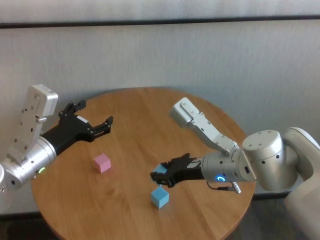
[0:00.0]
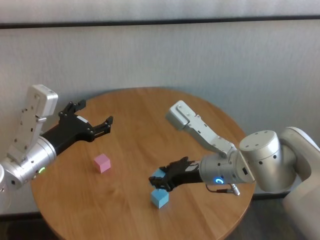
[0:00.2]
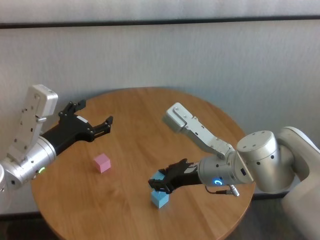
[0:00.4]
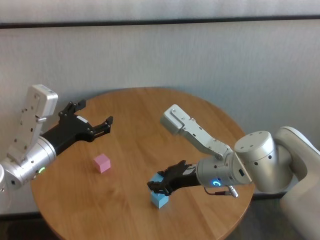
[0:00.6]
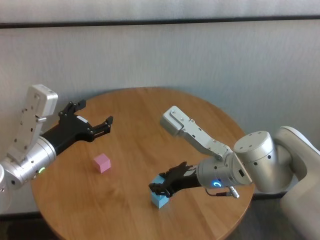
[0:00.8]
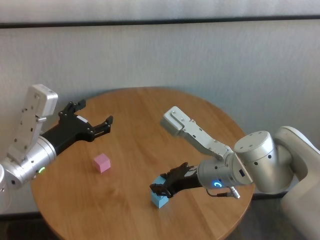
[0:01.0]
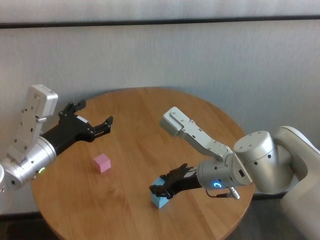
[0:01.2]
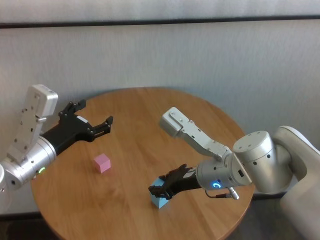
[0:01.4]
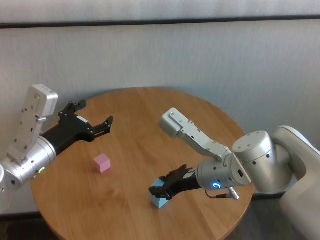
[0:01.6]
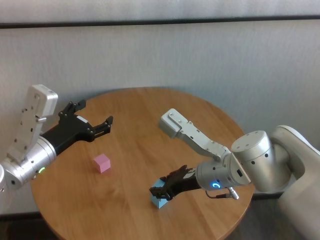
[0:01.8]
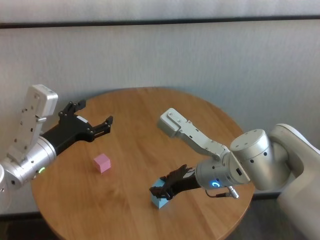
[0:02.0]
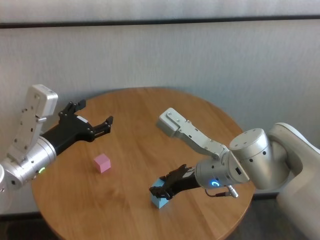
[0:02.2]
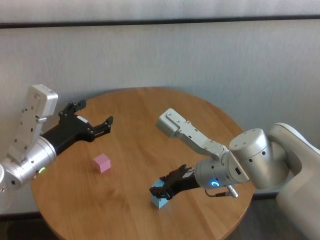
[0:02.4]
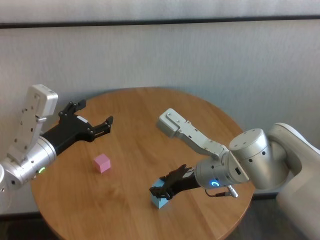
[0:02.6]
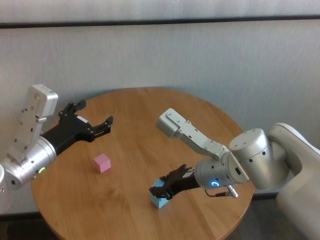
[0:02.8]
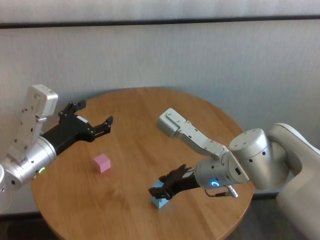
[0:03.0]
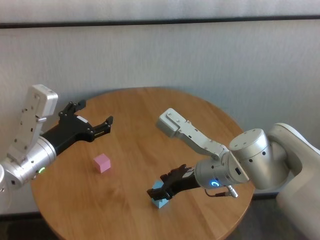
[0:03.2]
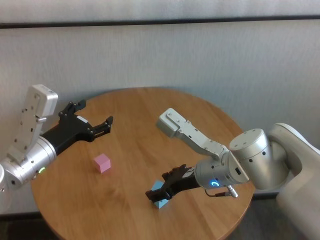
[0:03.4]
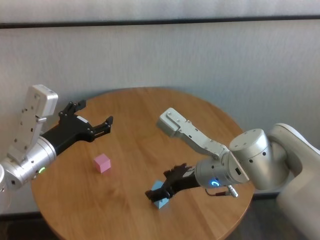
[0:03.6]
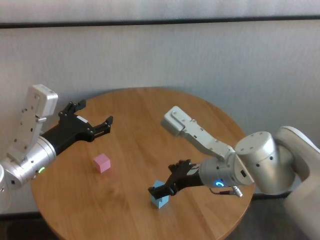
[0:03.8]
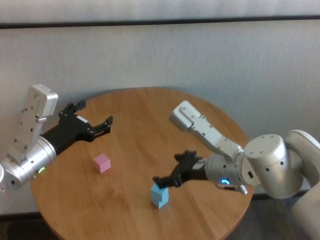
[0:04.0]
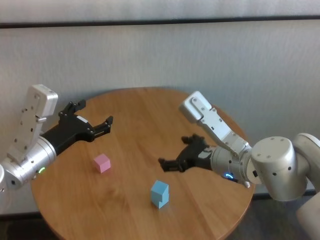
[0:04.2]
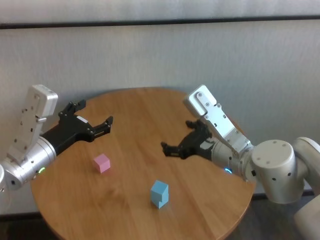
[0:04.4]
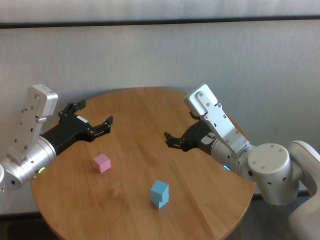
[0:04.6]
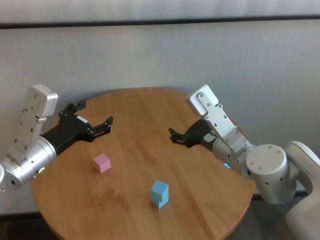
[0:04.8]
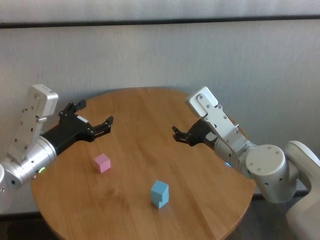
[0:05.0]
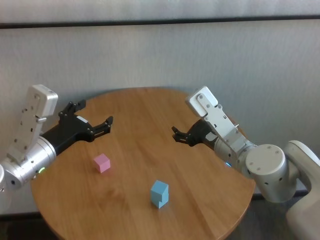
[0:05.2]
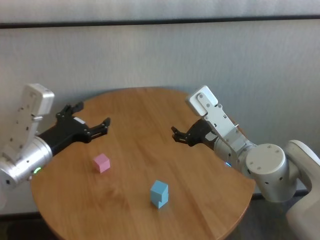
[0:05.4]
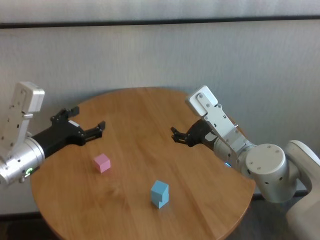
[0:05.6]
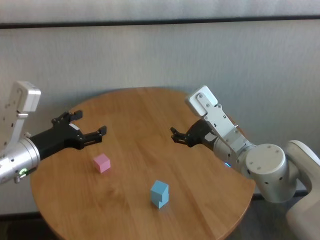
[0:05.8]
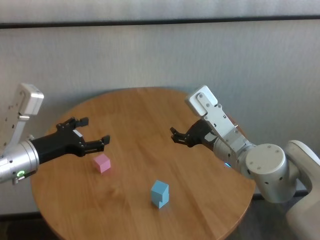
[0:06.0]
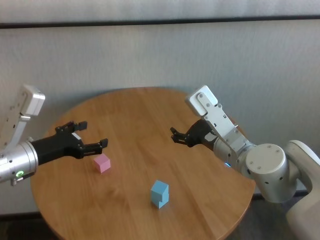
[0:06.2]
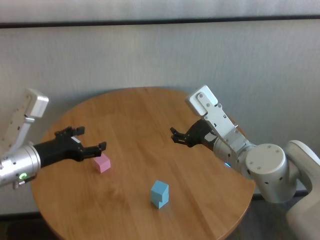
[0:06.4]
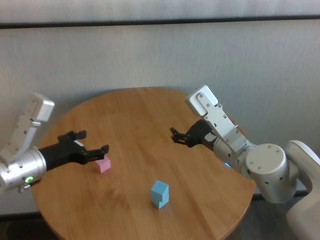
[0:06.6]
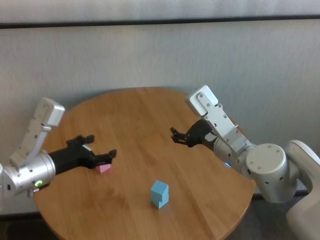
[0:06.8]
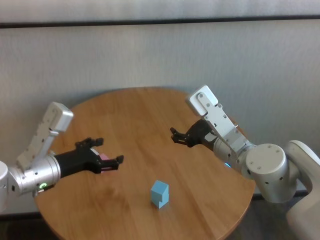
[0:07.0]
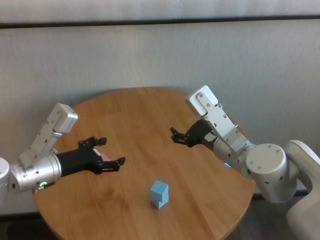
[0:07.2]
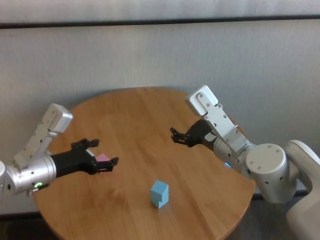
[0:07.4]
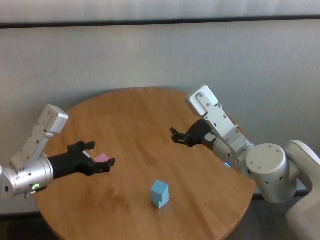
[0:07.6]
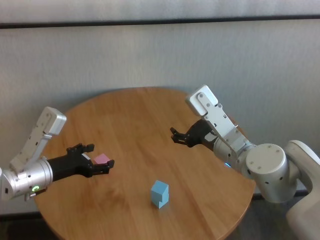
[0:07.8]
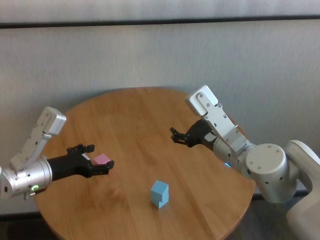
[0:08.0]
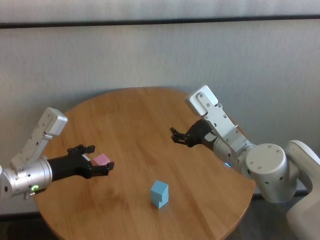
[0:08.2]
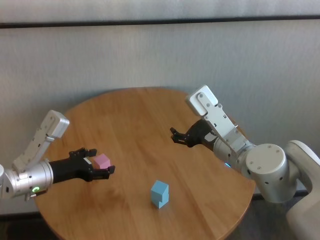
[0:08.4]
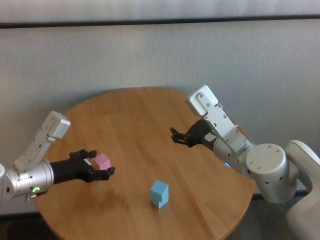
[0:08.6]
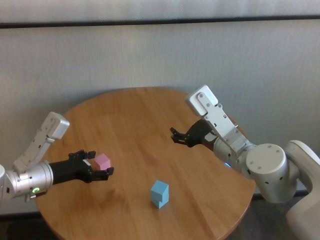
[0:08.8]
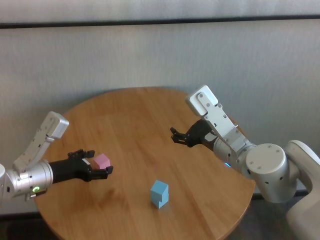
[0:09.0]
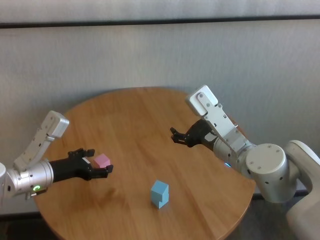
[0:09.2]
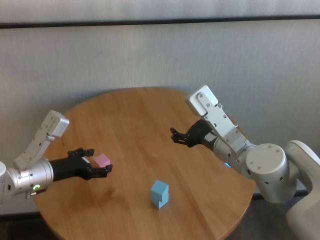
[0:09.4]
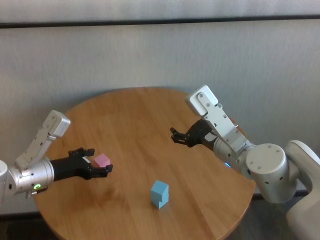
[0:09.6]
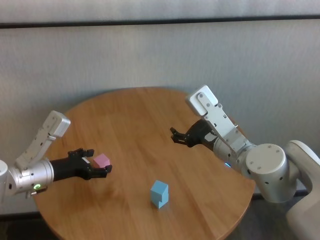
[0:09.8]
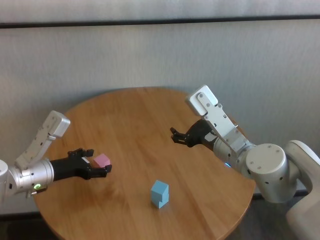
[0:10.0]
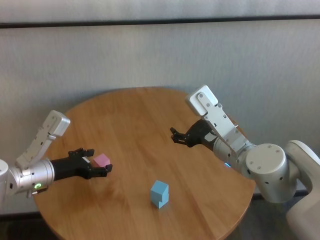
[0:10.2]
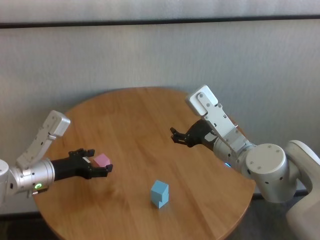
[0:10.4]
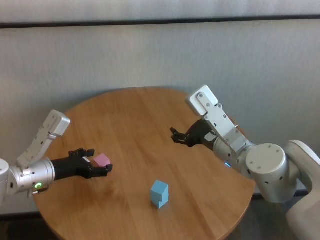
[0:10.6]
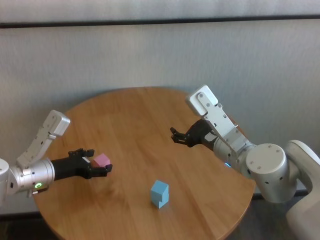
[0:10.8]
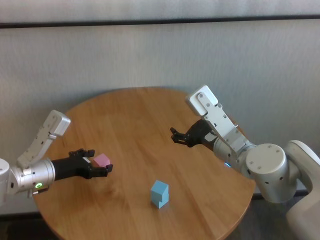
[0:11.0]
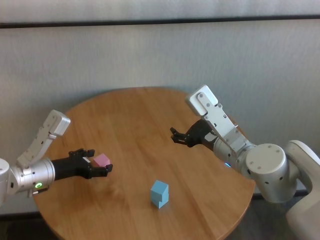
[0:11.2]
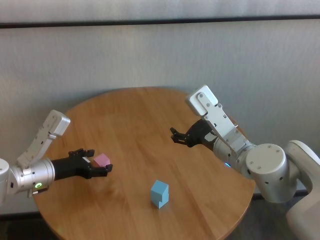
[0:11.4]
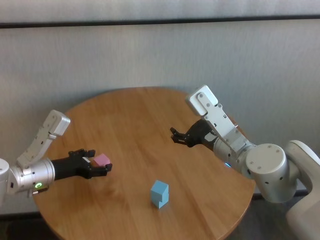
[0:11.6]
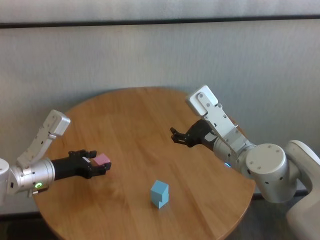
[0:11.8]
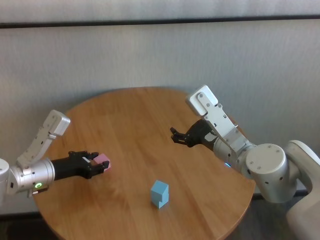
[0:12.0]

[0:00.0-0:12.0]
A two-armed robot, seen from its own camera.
Task of the whole recording: stack building blocks on the table.
Step, 0:00.0 to 0:03.2: Place the blue building block on the blue building blocks with right gripper.

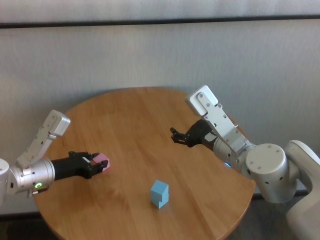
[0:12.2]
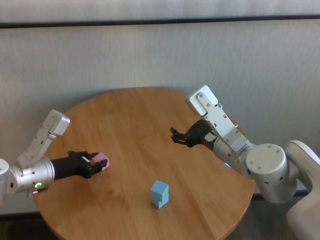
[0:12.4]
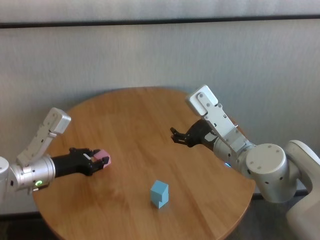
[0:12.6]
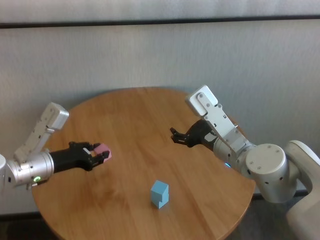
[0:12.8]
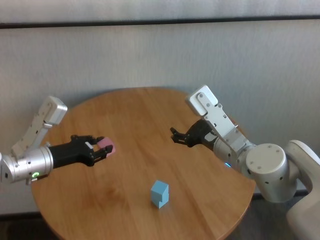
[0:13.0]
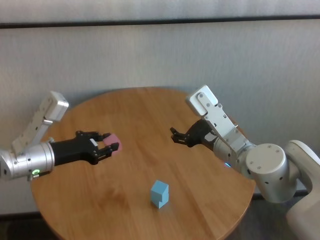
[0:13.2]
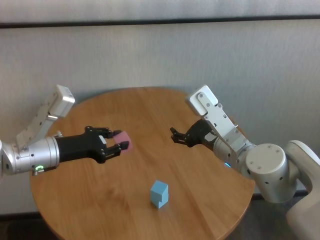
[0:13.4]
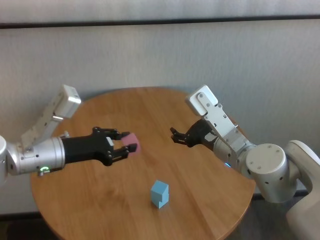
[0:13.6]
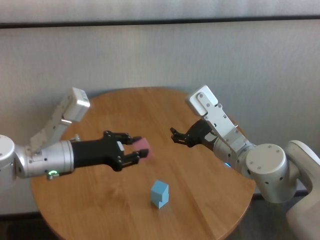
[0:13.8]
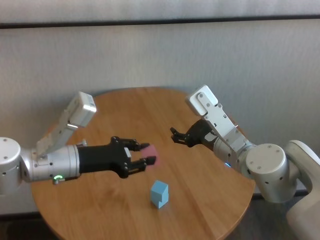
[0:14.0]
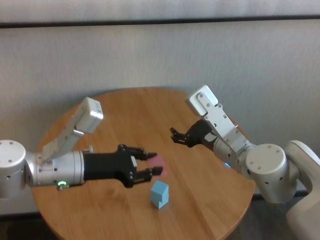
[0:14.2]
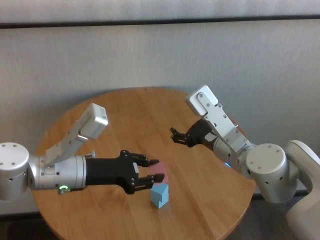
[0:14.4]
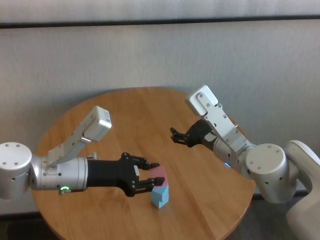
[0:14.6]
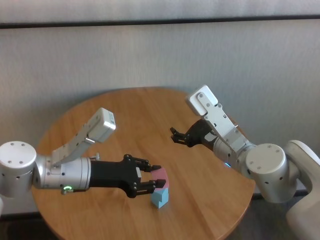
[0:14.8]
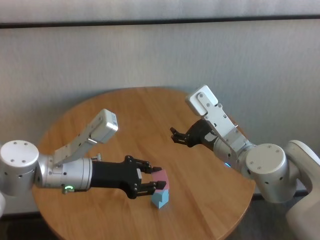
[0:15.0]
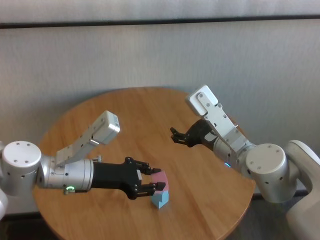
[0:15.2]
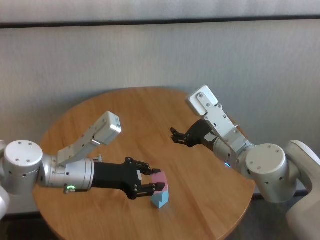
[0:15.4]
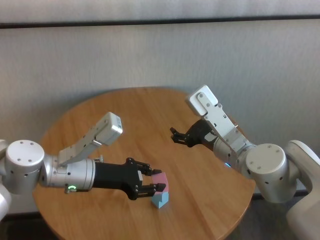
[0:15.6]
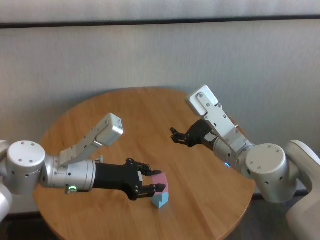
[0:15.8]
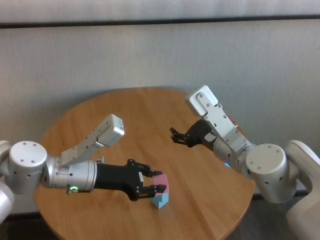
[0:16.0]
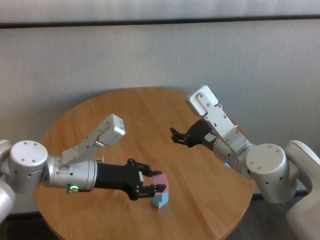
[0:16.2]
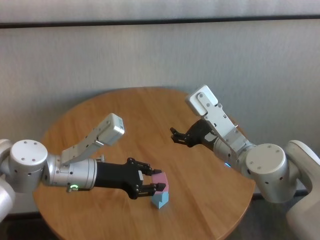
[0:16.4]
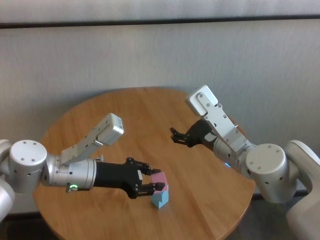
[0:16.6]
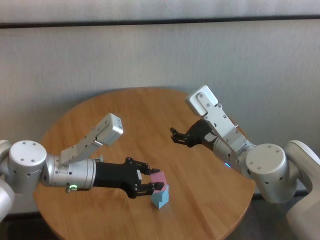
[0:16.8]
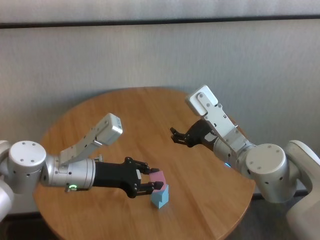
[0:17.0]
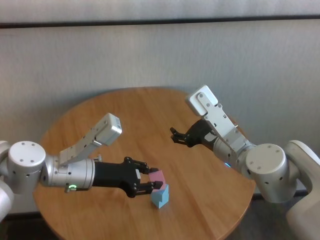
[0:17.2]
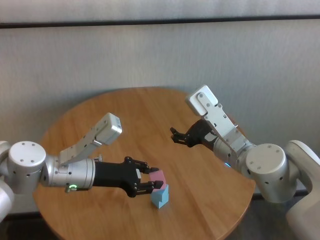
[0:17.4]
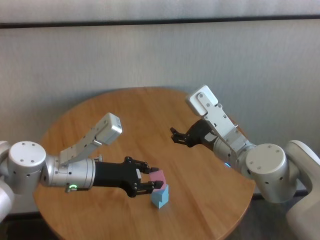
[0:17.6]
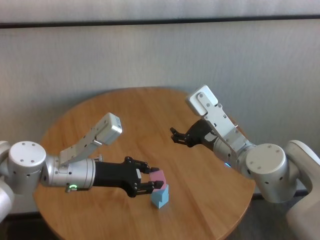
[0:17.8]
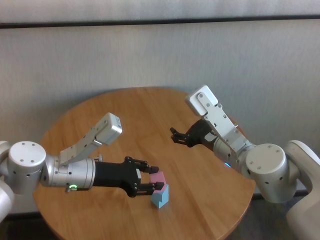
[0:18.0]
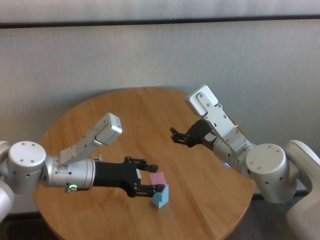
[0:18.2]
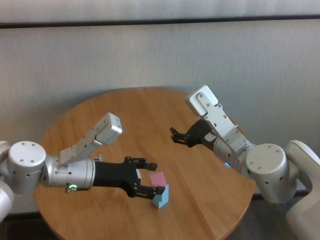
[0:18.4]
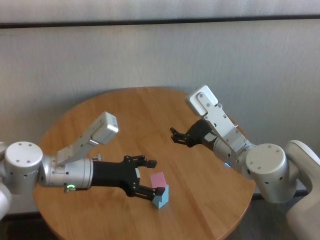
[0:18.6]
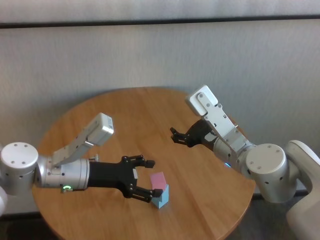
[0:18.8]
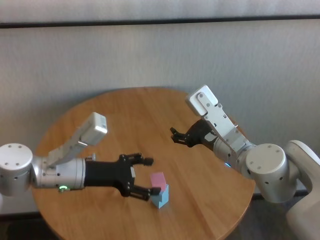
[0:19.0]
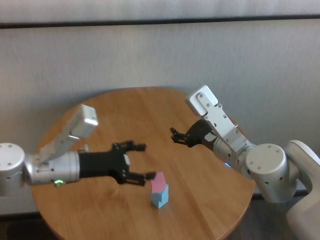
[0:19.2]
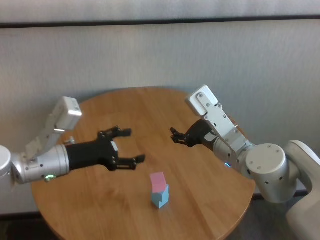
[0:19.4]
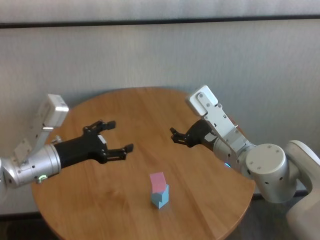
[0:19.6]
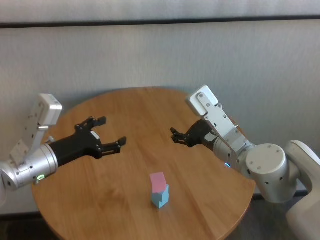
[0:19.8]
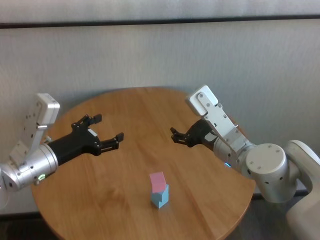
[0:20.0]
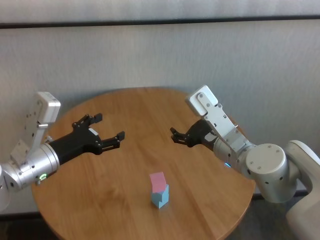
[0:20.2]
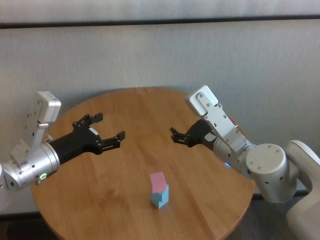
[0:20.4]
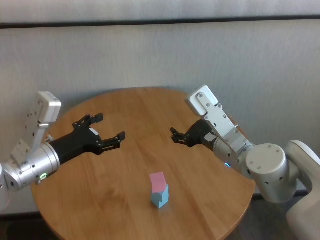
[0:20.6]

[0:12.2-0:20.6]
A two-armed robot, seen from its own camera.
Task of the whole recording: stack building blocks on the table.
Step, 0:12.4 to 0:18.2: Place the pink building block on the blue building blocks with left gripper.

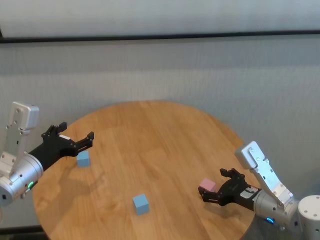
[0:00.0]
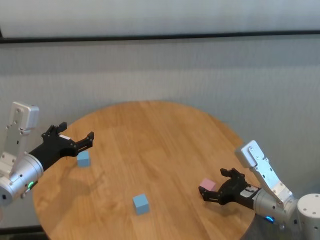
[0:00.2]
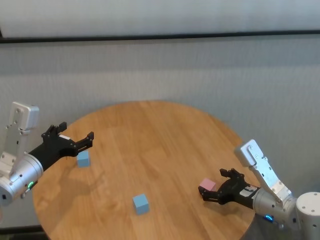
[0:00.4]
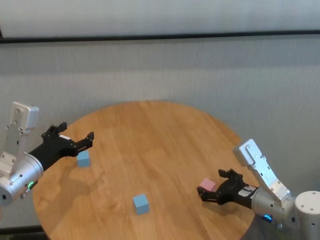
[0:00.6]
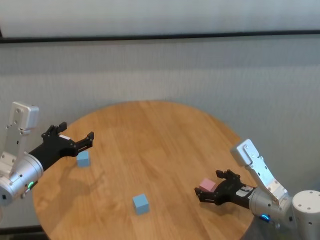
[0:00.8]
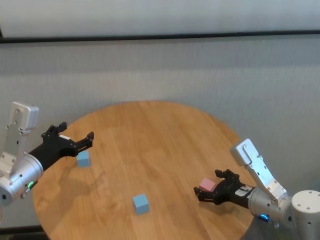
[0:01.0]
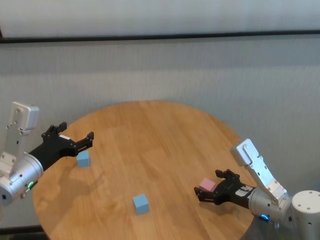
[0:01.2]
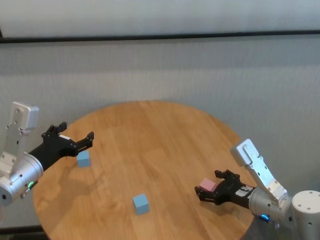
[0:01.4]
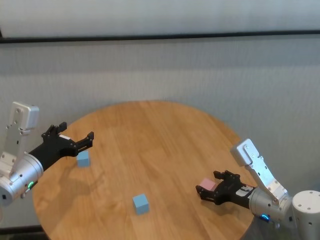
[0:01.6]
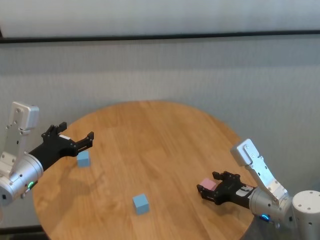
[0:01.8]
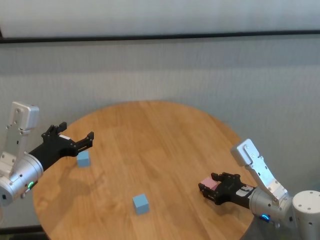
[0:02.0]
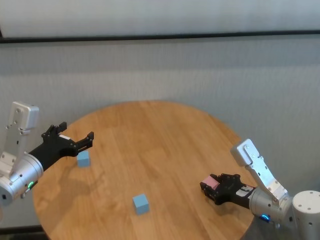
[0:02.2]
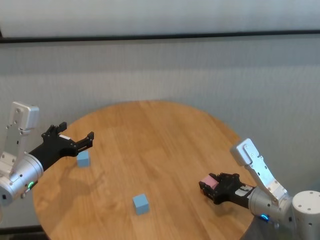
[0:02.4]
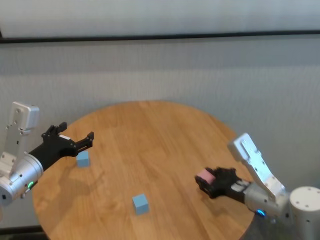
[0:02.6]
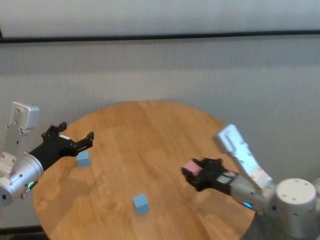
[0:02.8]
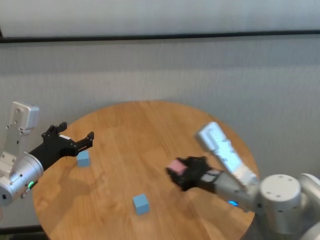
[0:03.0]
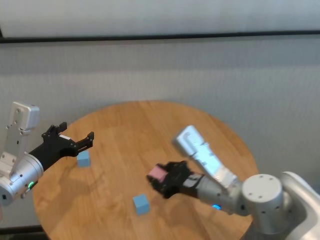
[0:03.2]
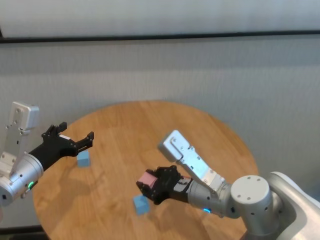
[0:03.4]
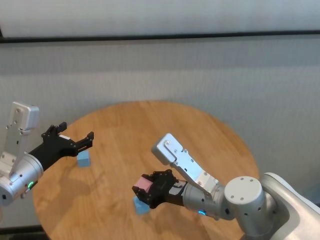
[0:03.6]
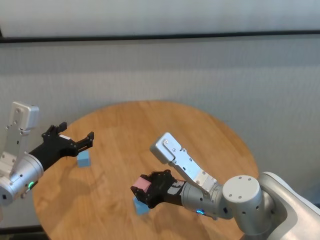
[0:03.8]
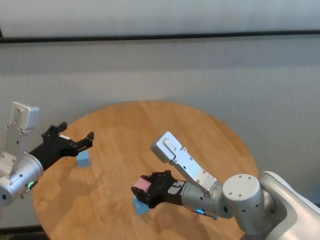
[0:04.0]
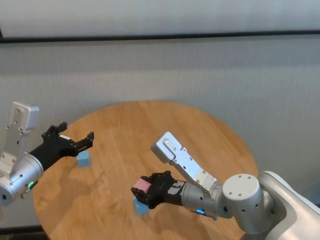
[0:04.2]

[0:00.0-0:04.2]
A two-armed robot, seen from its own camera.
Task of the whole recording: stack building blocks on the table.
Step, 0:00.0 to 0:02.2: Grasp the pink building block with right gripper.
